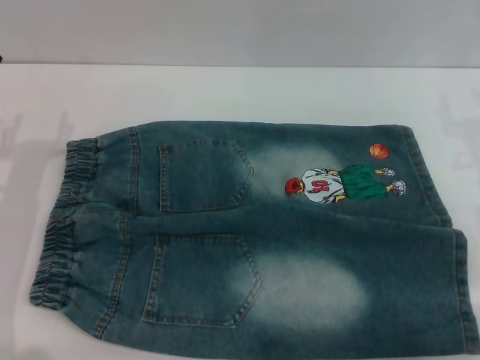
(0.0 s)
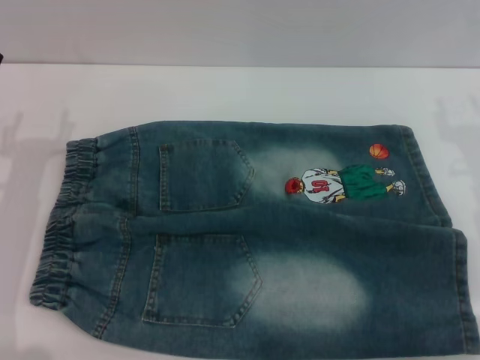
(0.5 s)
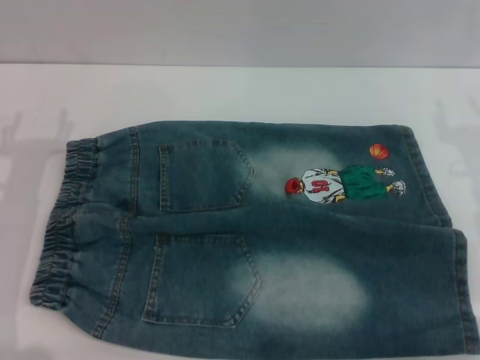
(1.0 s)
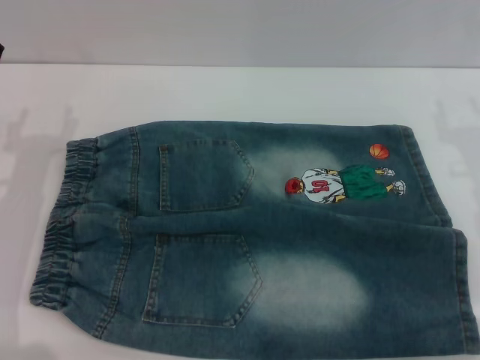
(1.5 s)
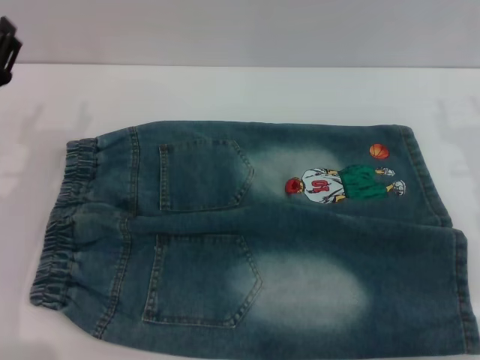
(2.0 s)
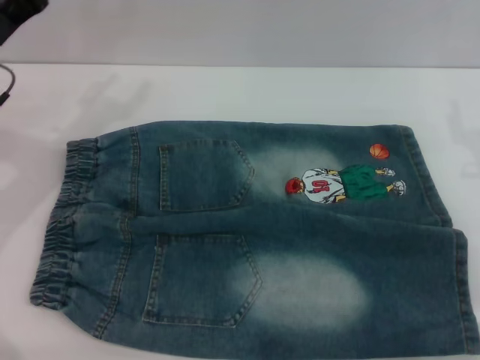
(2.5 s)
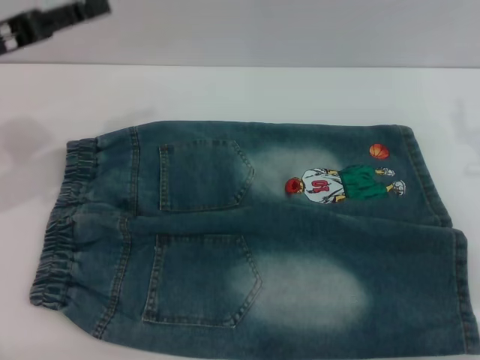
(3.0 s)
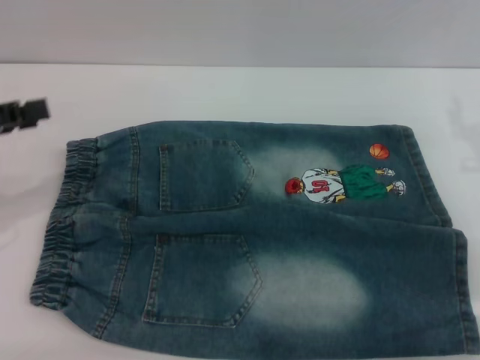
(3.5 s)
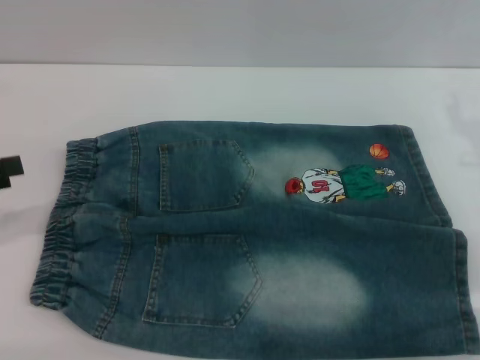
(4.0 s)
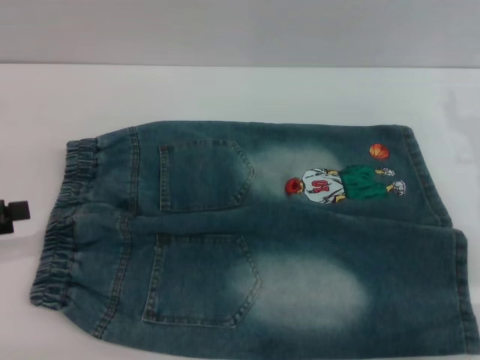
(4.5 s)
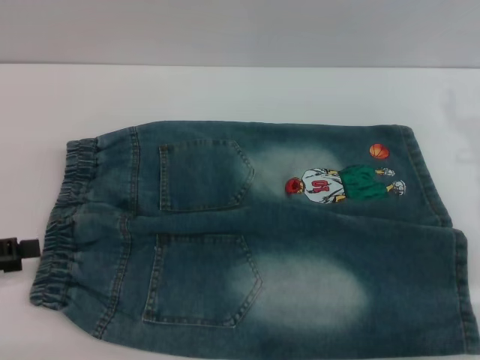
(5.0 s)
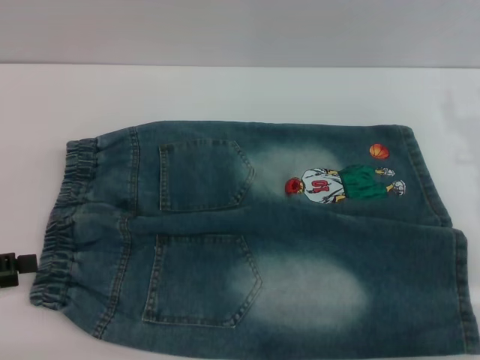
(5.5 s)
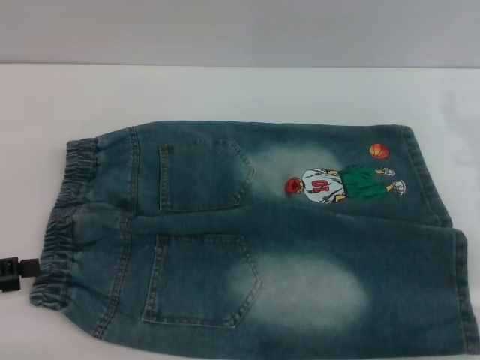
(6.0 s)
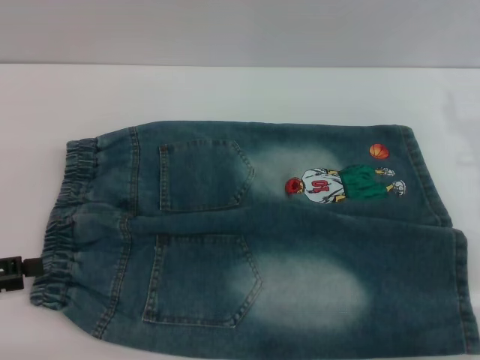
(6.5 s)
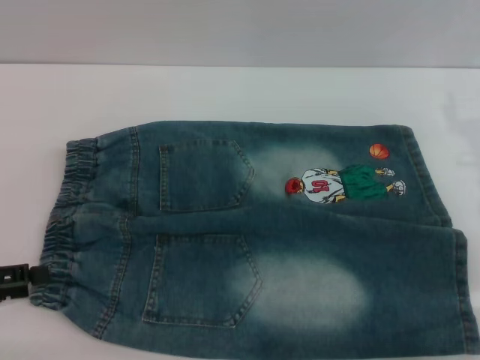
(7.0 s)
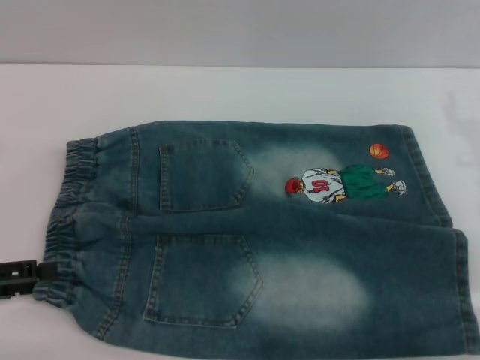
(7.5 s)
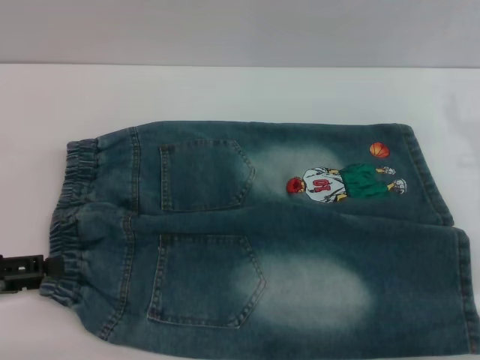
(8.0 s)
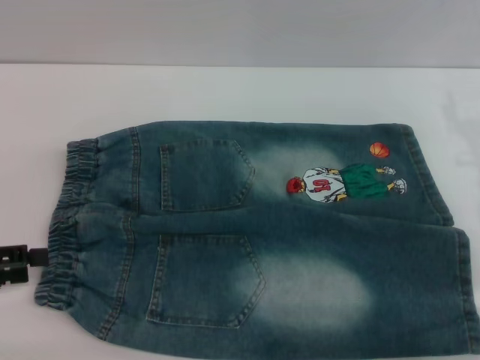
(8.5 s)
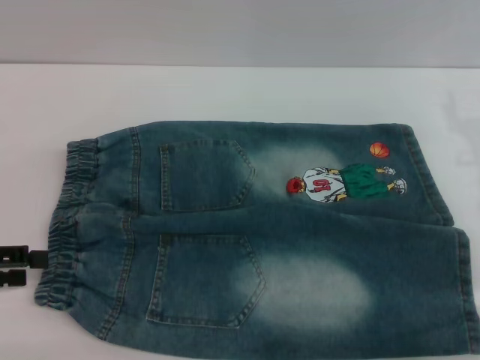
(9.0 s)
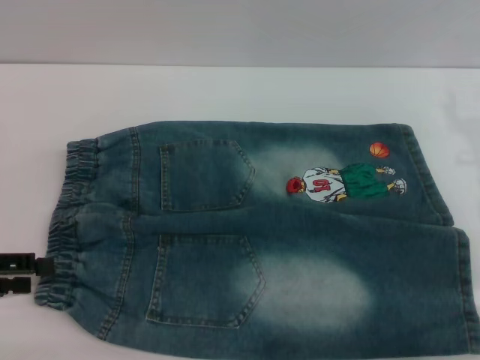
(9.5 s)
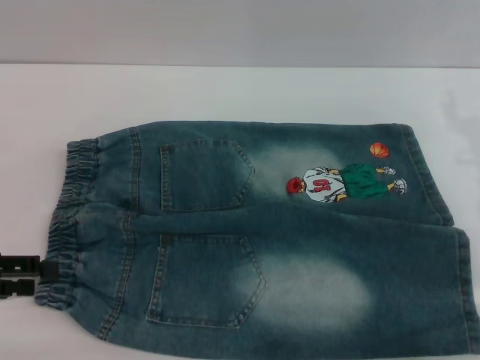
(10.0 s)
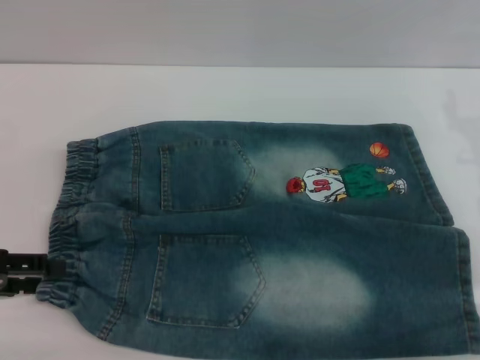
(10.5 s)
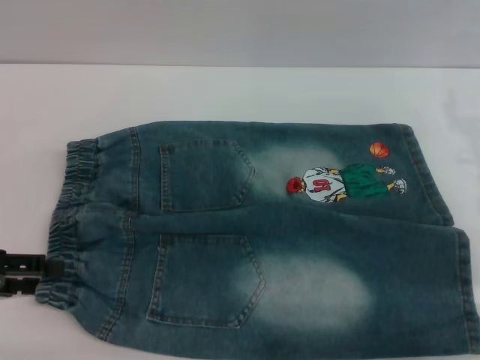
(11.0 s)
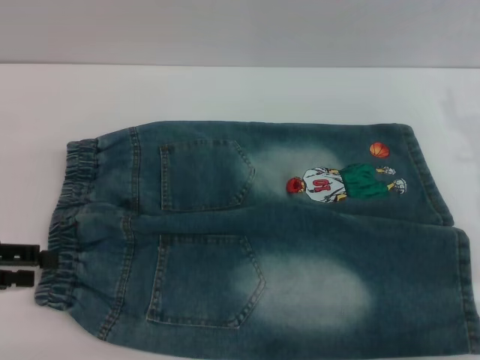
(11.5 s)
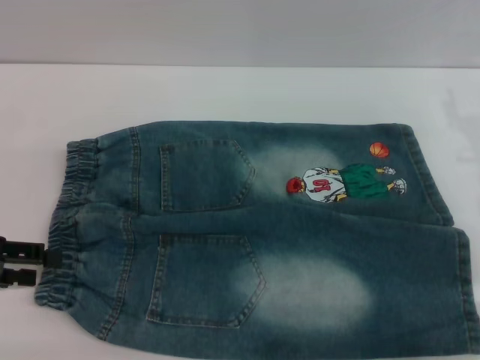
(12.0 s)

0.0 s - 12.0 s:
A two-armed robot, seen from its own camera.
2.0 s - 4.0 s: The left gripper travels to the left, upward and backward by about 15 cm.
4.0 s - 6.0 s: The left gripper is displaced downward by some 5 cm.
6.0 s - 12.0 s: The grippers move only a little.

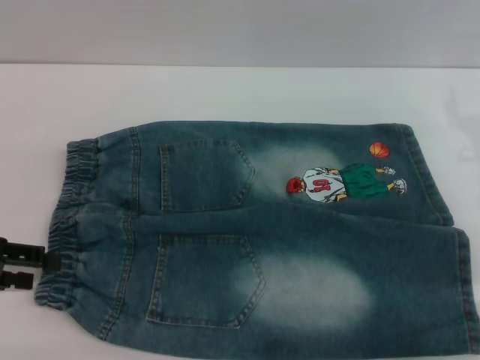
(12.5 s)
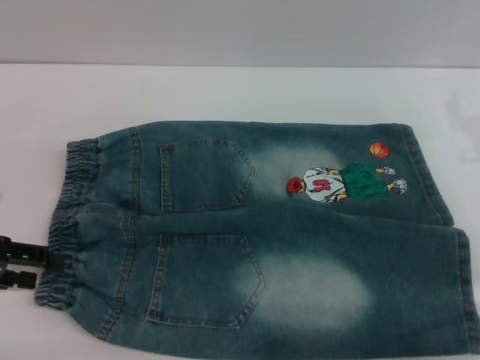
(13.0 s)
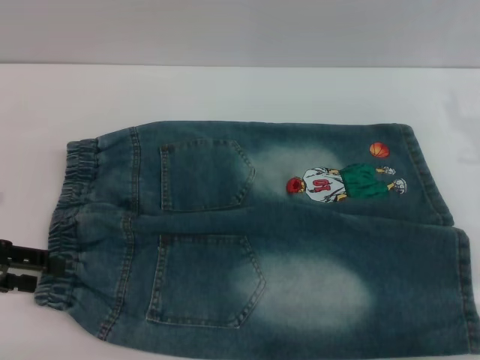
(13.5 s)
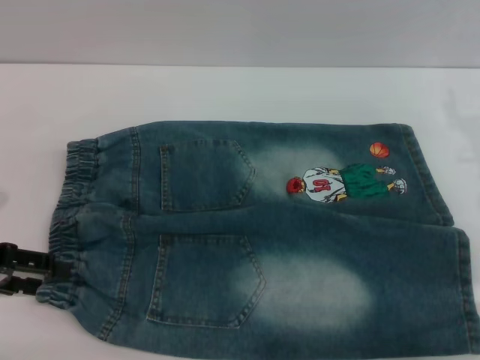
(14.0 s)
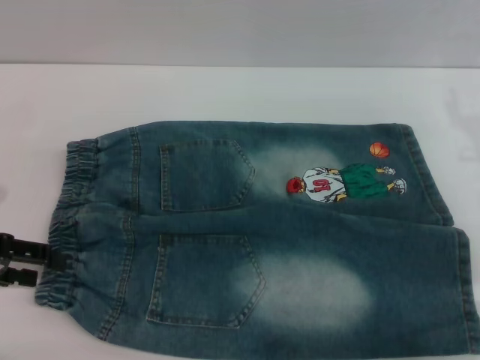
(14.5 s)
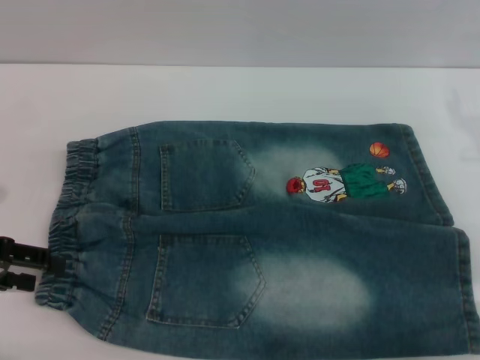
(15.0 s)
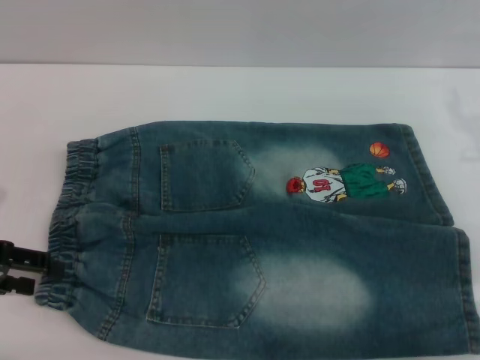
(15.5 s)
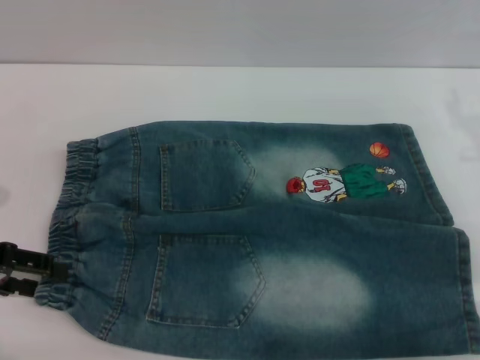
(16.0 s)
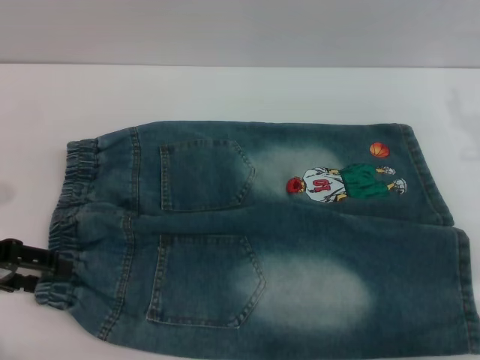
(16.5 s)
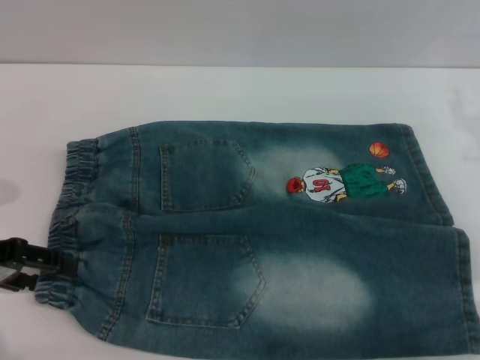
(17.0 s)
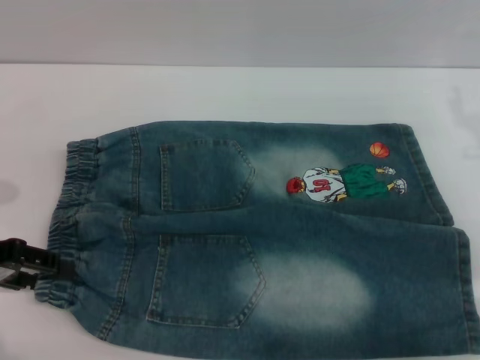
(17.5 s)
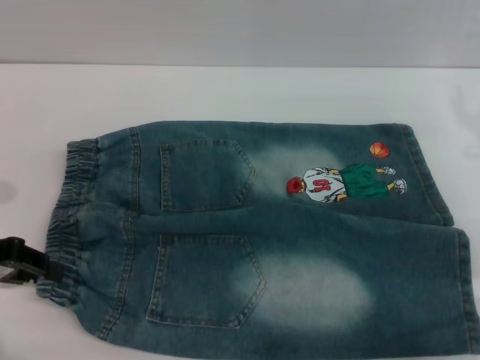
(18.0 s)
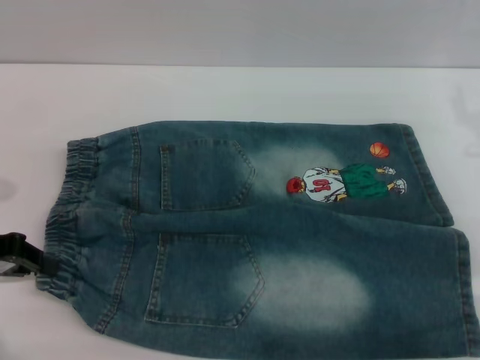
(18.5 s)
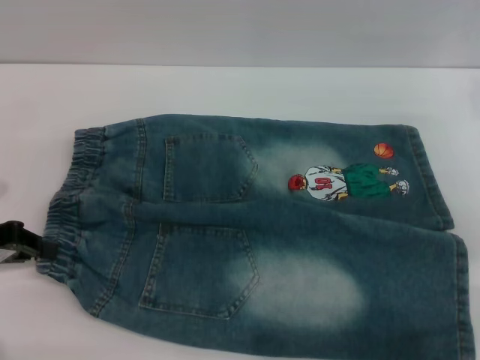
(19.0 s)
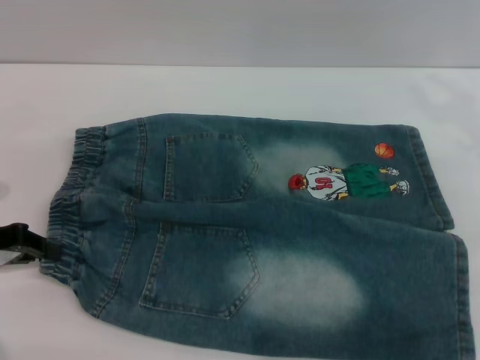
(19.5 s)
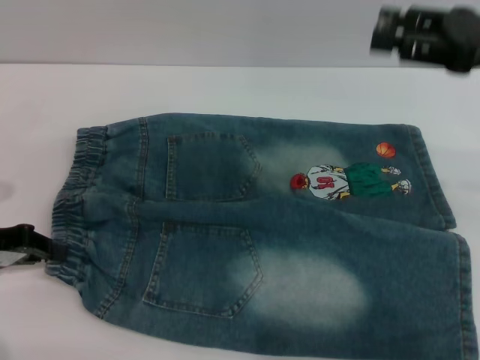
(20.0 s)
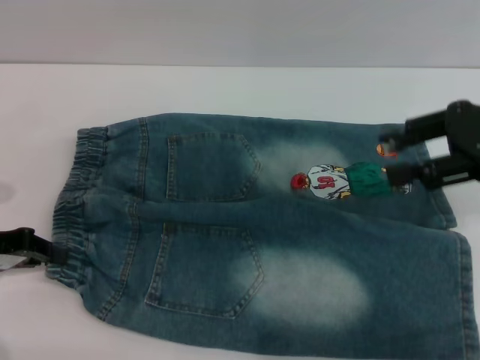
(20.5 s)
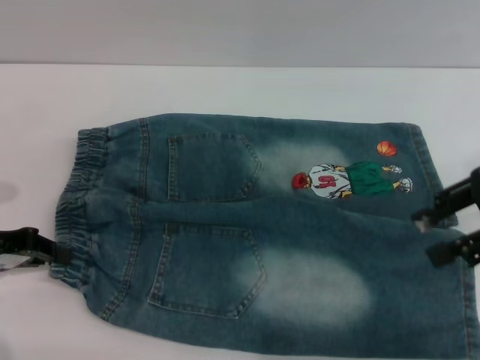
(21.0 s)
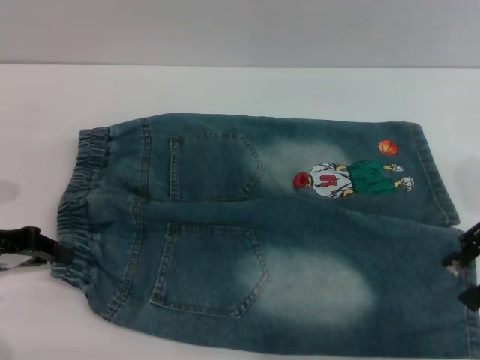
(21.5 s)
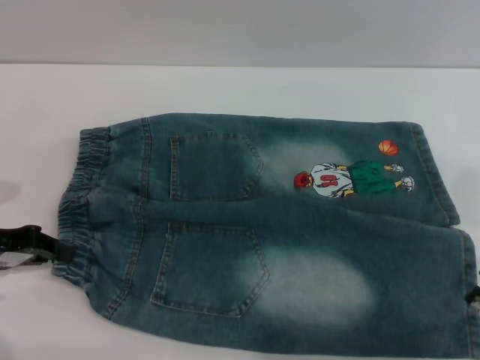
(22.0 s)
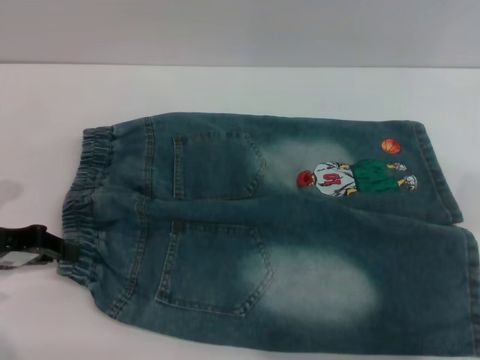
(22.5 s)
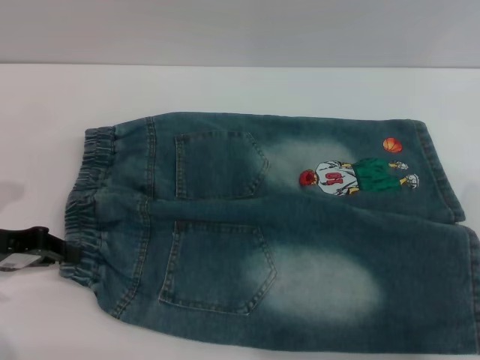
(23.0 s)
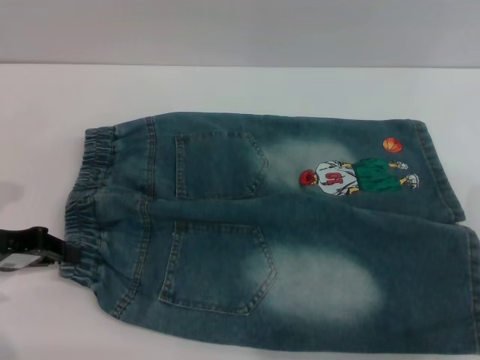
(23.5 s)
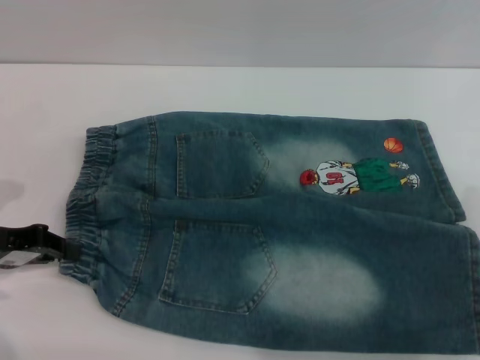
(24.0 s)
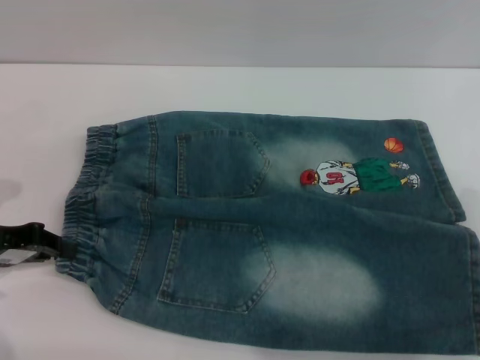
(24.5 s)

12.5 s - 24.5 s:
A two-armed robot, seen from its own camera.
12.5 s - 14.5 s: Both grippers stay about where they are.
14.5 s - 16.5 s: Neither gripper changes place.
16.5 s - 18.5 s: The left gripper closes its fingers.
18.5 s - 20.5 s: The right gripper heads upward, covering approximately 10 cm.
22.5 s - 24.5 s: The grippers move only a little.

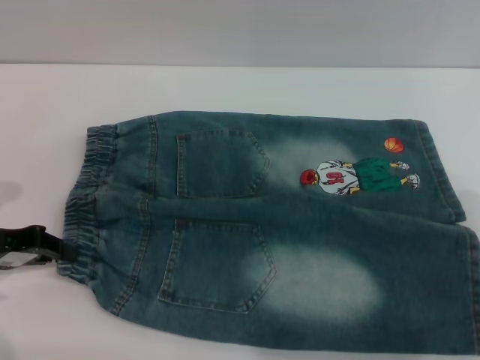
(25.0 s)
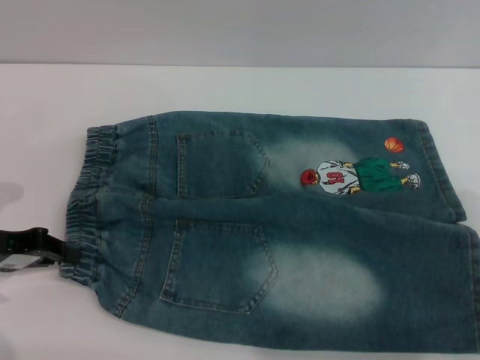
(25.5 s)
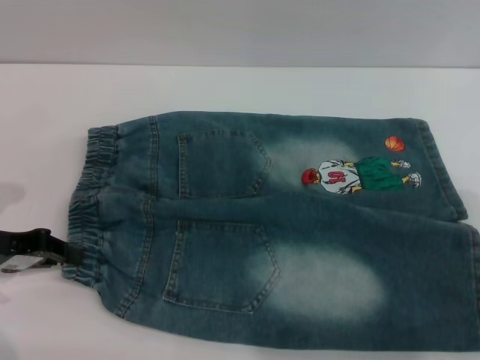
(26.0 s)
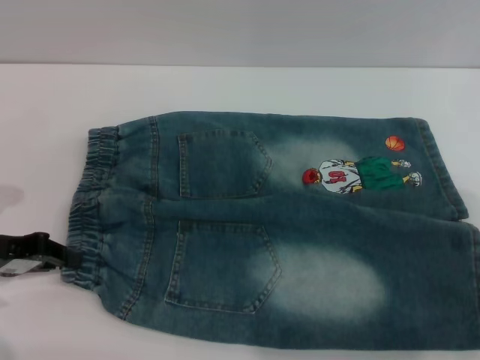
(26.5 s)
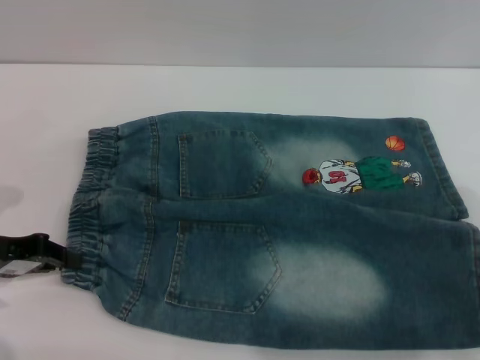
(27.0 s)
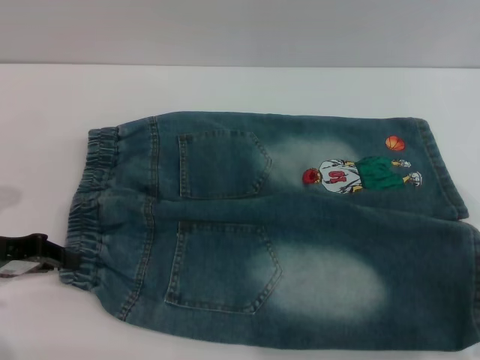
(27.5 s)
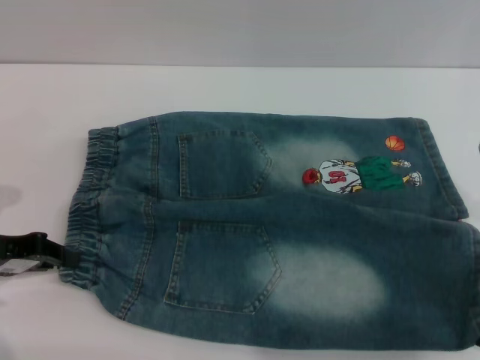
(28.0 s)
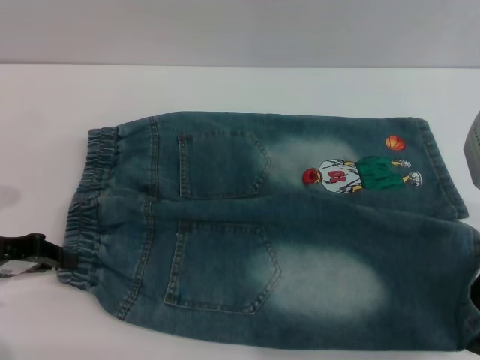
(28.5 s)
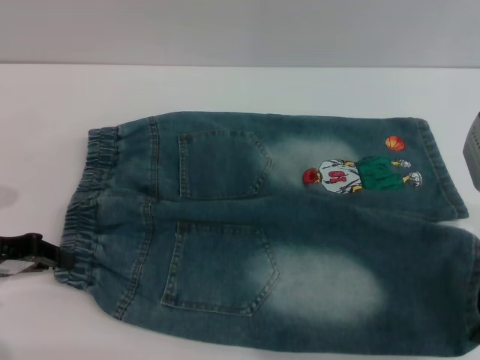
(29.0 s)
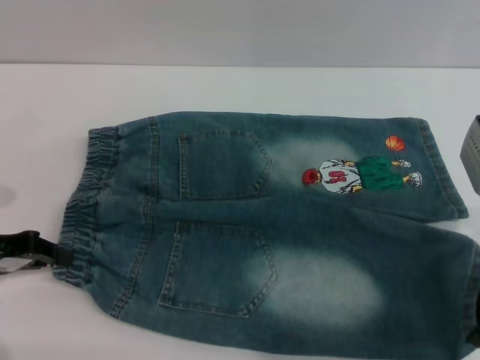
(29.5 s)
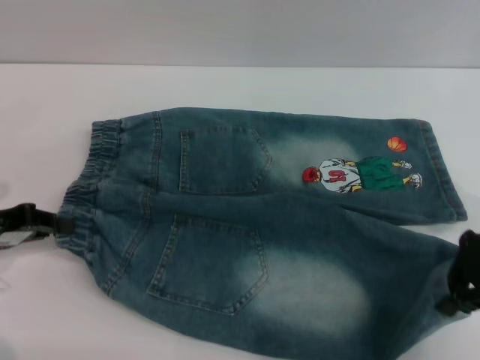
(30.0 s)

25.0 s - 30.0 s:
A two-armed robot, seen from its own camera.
25.0 s - 27.5 s: The grippers make only small movements.
27.5 s - 30.0 s: The right gripper closes its fingers.
